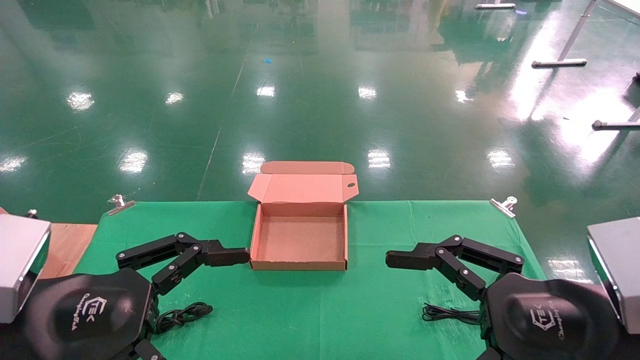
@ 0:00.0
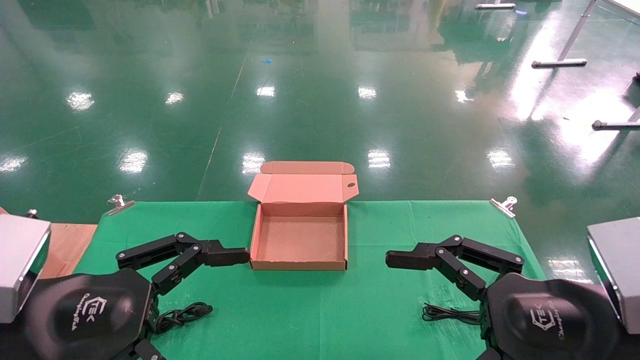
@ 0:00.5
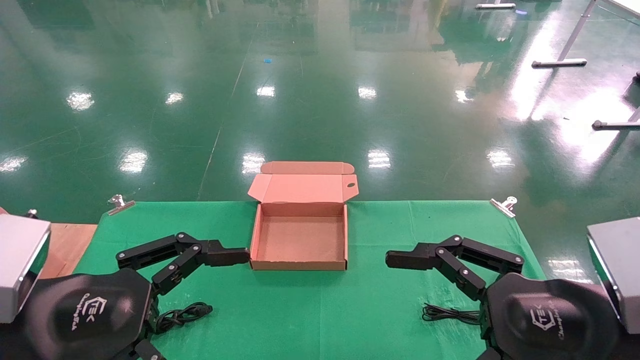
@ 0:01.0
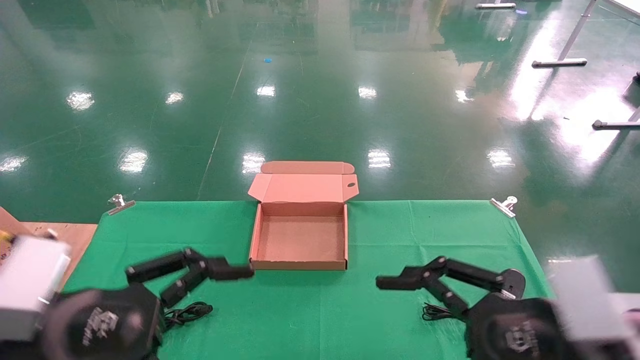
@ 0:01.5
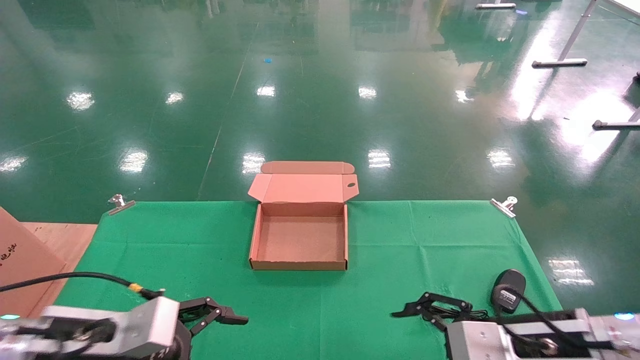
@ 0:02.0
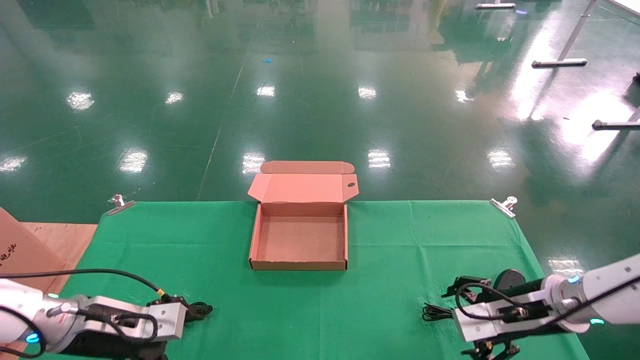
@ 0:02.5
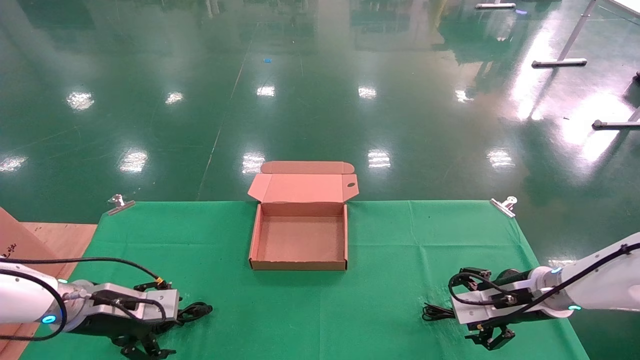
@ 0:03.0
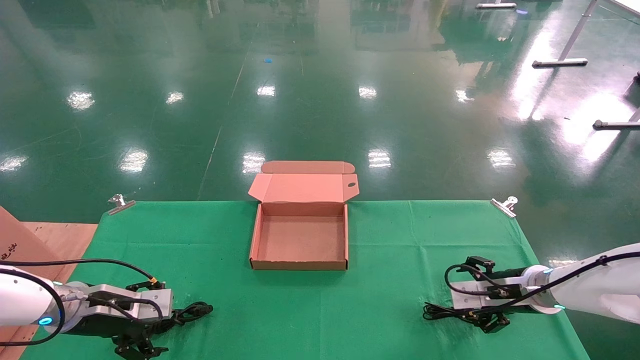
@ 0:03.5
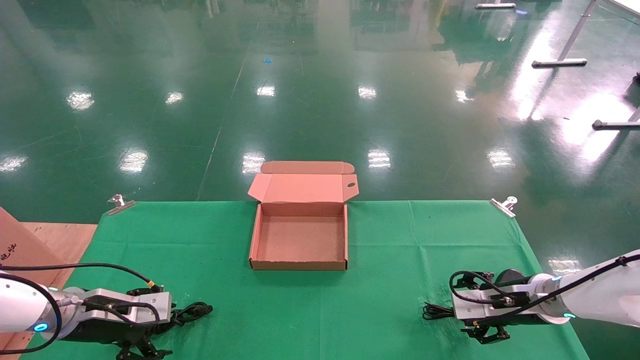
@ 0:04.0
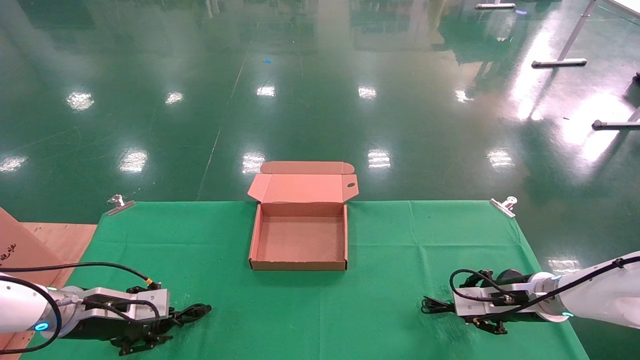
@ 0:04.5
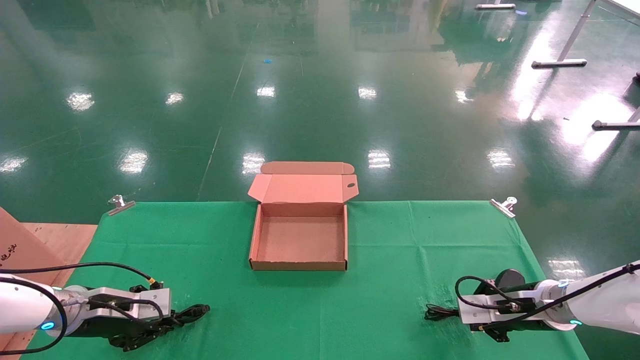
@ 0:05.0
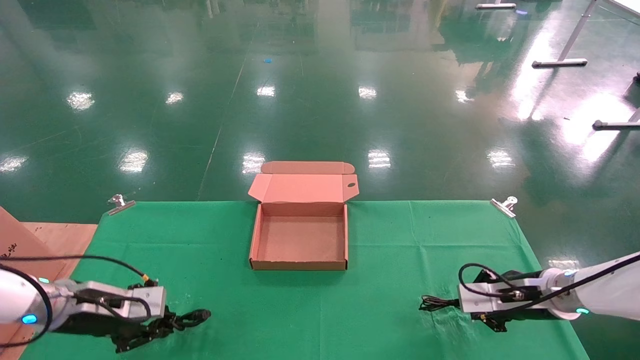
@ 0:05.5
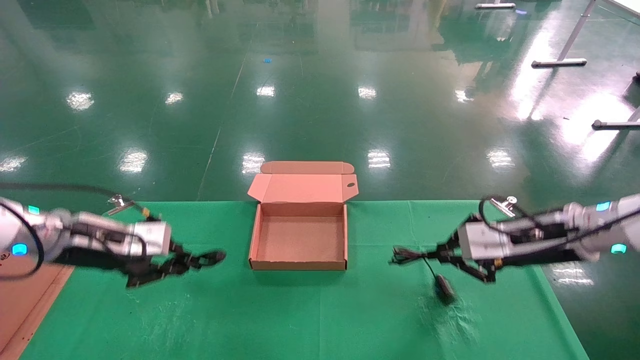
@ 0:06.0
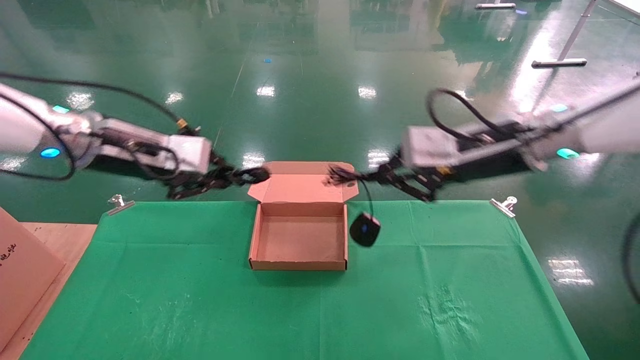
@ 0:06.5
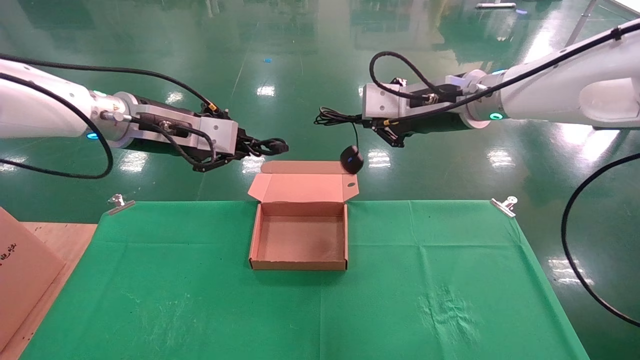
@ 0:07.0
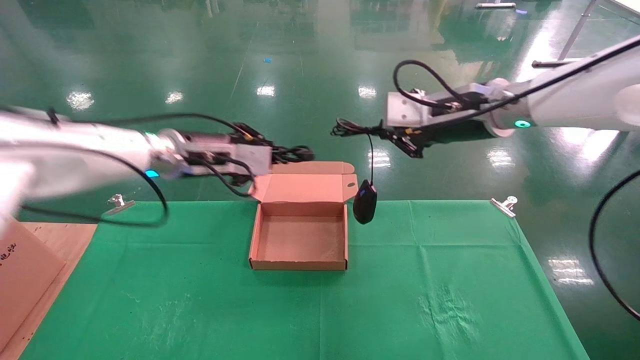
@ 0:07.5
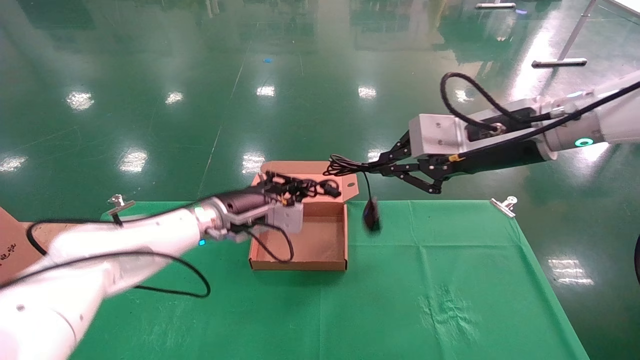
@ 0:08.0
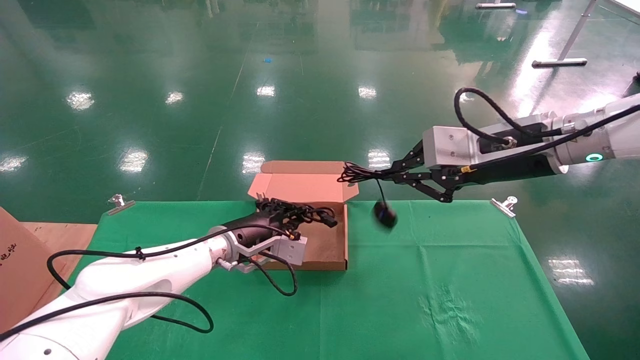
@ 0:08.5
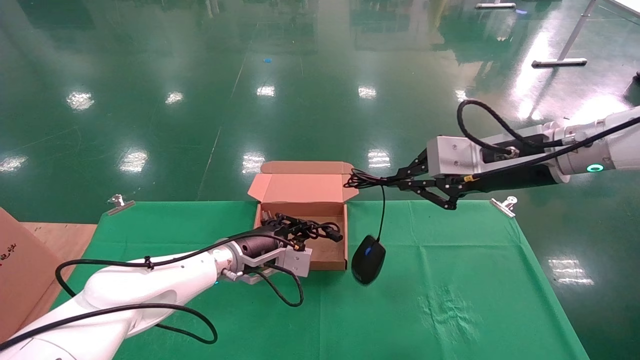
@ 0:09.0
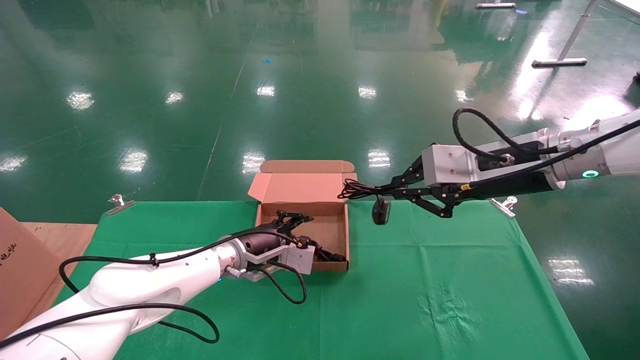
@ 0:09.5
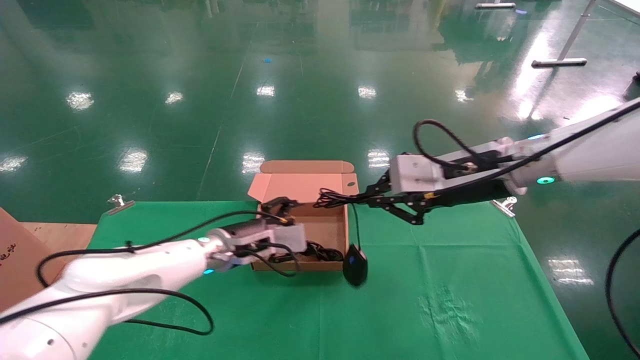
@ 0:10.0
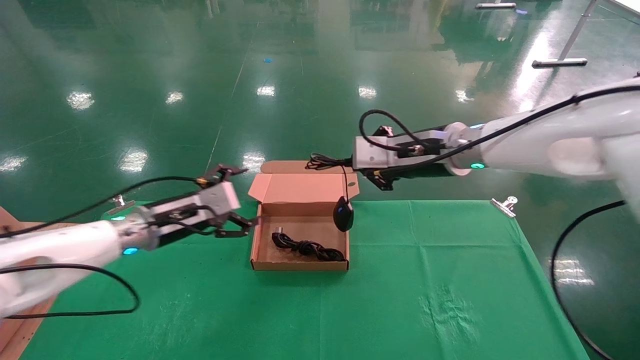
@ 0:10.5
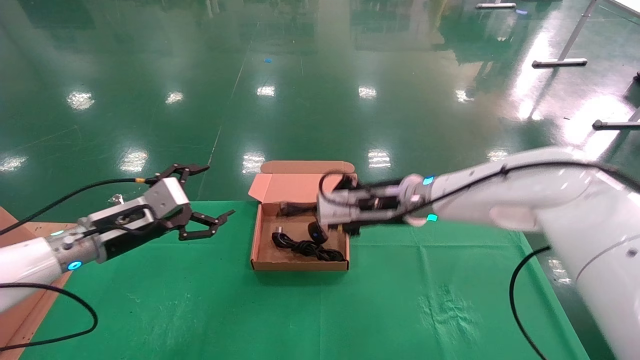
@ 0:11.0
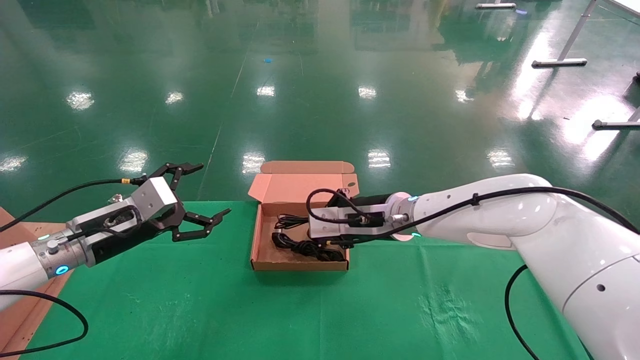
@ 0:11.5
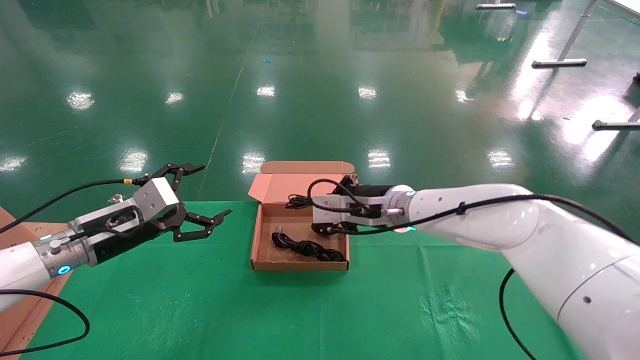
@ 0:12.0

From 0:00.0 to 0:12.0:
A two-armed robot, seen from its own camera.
Step, from 0:02.0 to 0:07.0: Grab and lift both the mouse and power cord from the accessory packaging area at the same time.
From 0:00.0 to 0:02.0: Both grippers travel together forward and downward, some 15 cm.
From 0:02.0 to 0:04.0: The right gripper goes approximately 15 cm forward and to the right; the left gripper travels forward, to the left and downward by about 15 cm.
From 0:04.0 to 0:06.0: The grippers both shift upward by some 15 cm. The right gripper closes; the left gripper closes.
From 0:06.0 to 0:08.0: The left gripper shifts approximately 20 cm to the right and forward; the right gripper shifts about 15 cm upward and to the left.
From 0:08.0 to 0:10.0: The left gripper goes some 5 cm downward, and opens up; the right gripper moves approximately 5 cm.
From 0:10.0 to 0:12.0: The left gripper travels to the left and backward by approximately 20 cm, and opens its fingers. The right gripper travels to the left, downward and forward by roughly 15 cm.

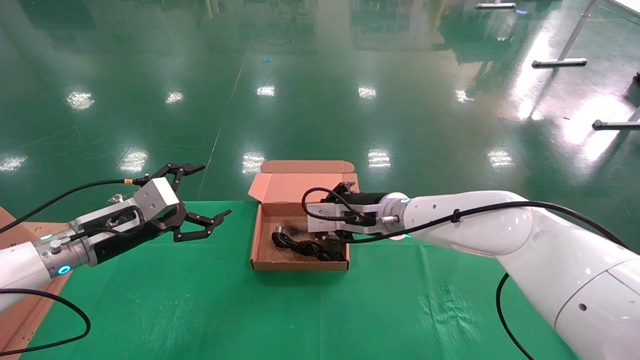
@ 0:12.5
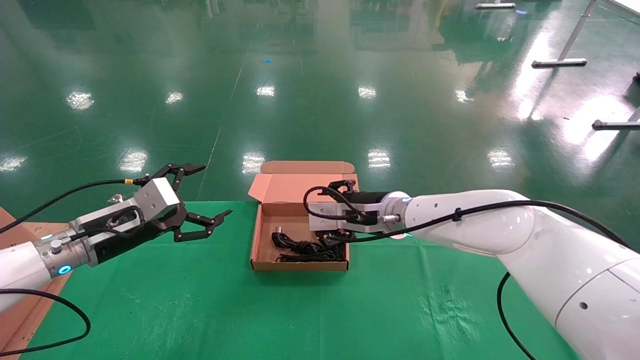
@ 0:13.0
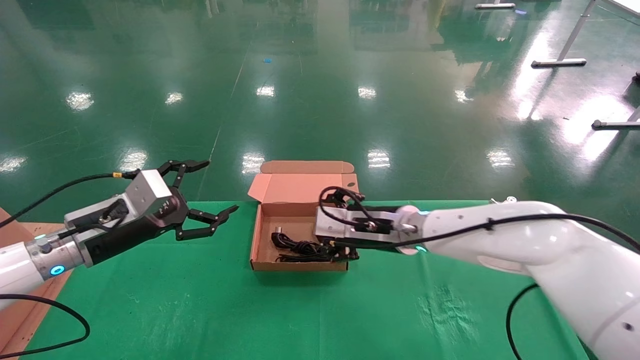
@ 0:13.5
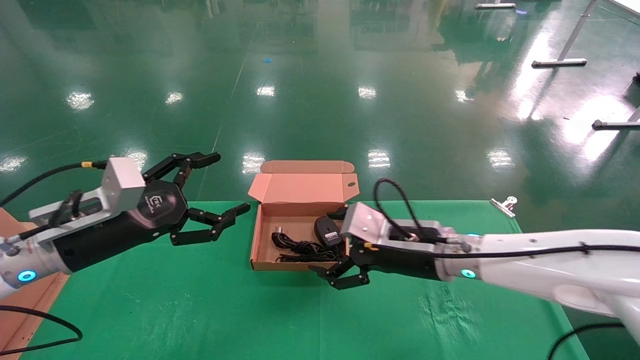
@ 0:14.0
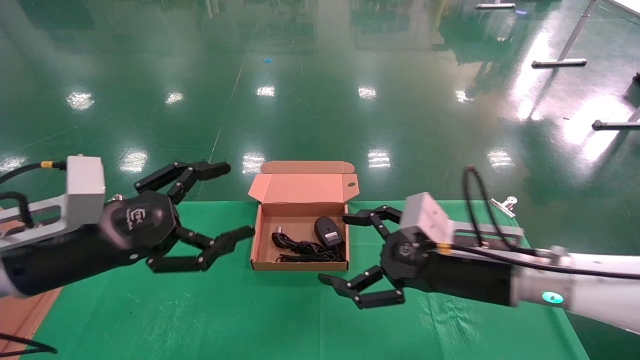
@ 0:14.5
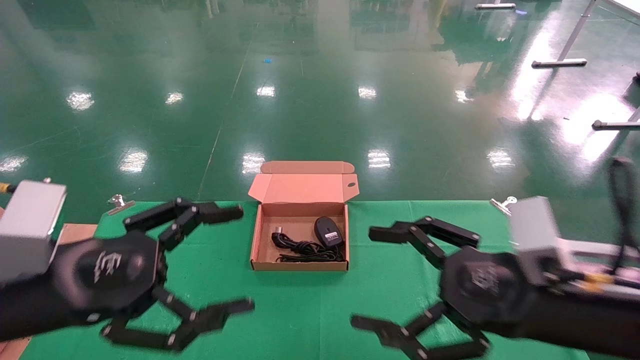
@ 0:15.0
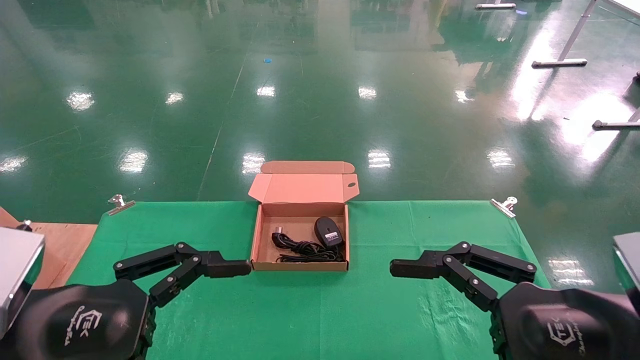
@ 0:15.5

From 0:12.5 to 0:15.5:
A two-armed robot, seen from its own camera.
From 0:12.5 to 0:14.0: The right gripper travels backward and to the right by approximately 10 cm, and opens up; the left gripper goes some 5 cm backward.
From 0:14.0 to 0:15.5: The left gripper travels backward by some 15 cm. The right gripper goes about 25 cm backward and to the right.
